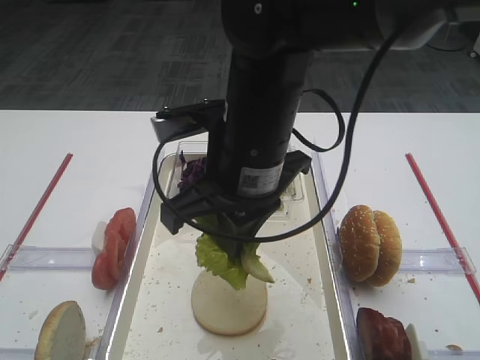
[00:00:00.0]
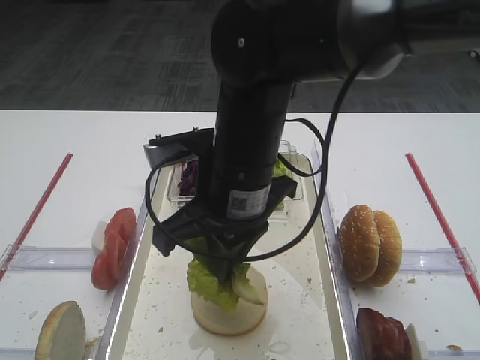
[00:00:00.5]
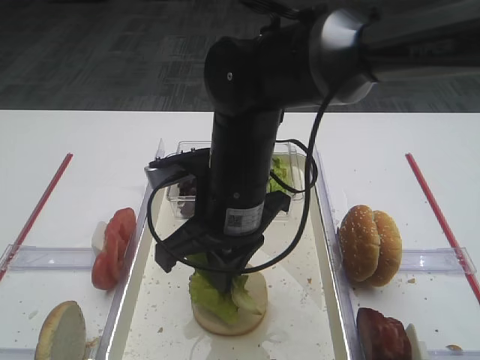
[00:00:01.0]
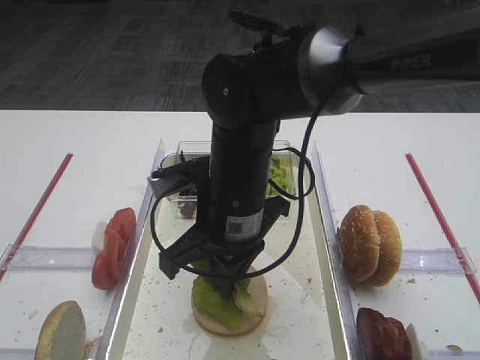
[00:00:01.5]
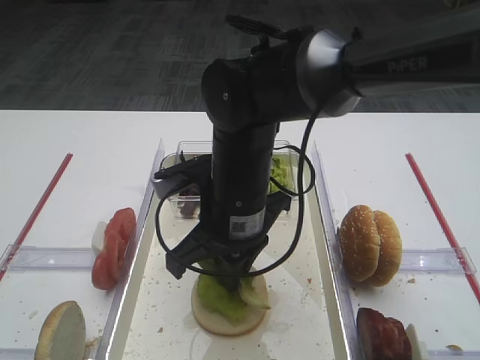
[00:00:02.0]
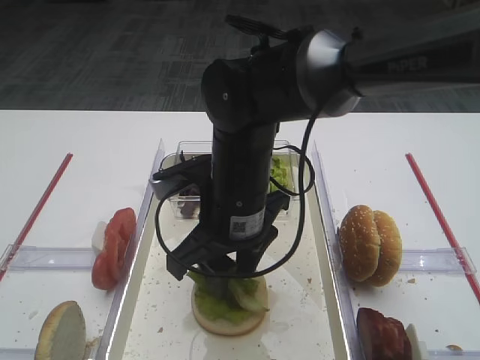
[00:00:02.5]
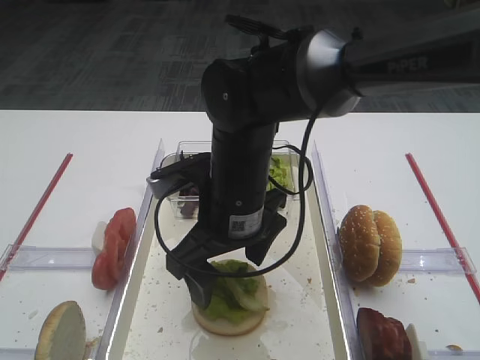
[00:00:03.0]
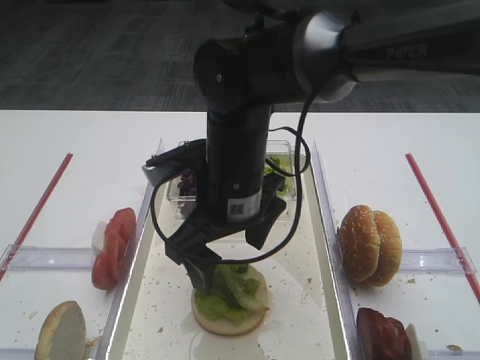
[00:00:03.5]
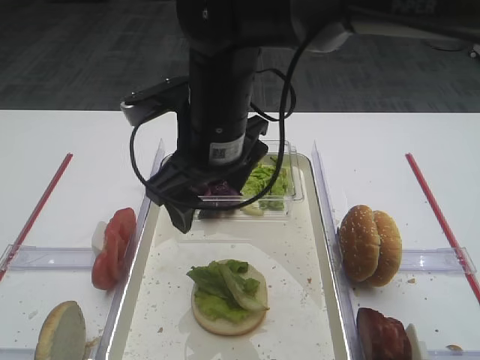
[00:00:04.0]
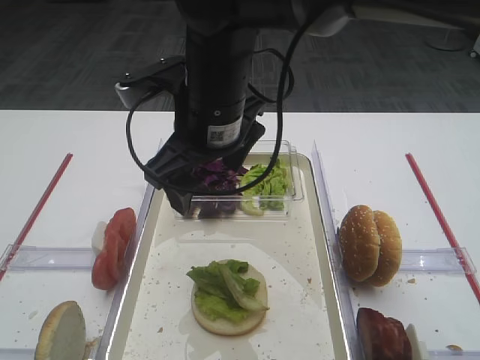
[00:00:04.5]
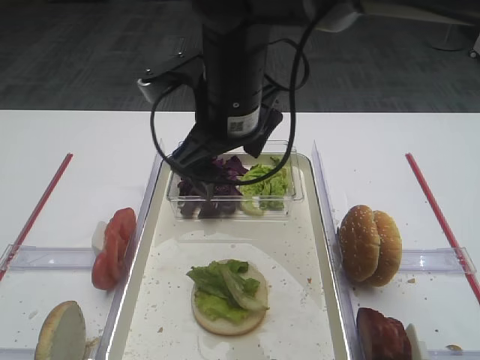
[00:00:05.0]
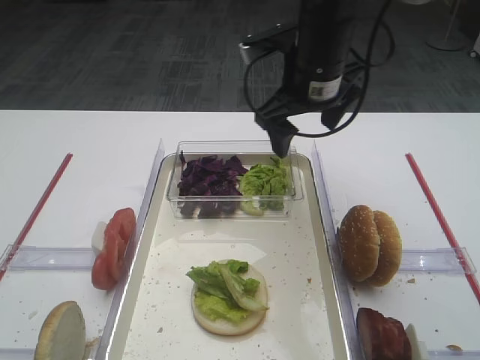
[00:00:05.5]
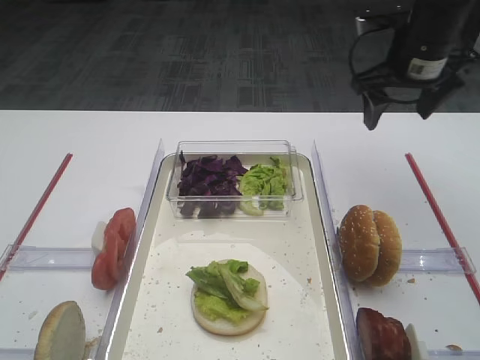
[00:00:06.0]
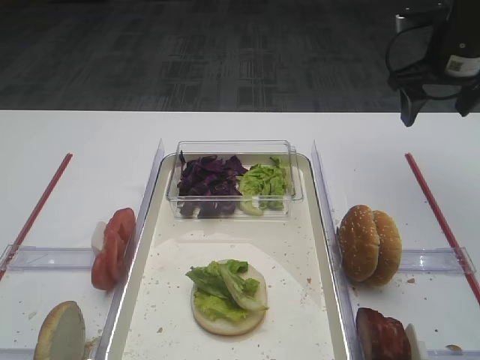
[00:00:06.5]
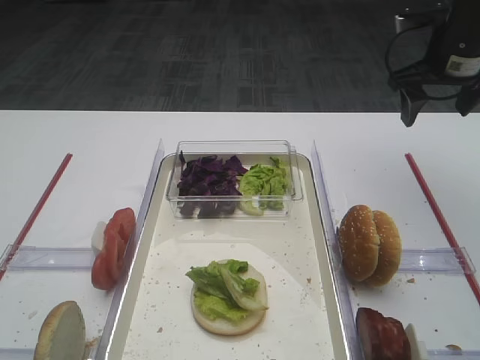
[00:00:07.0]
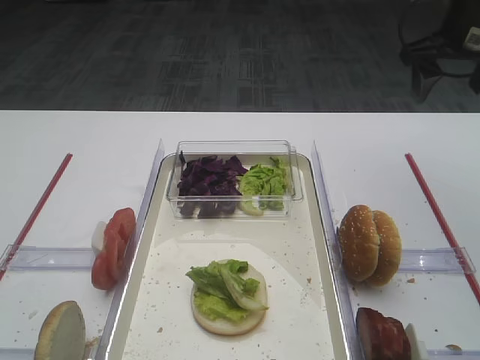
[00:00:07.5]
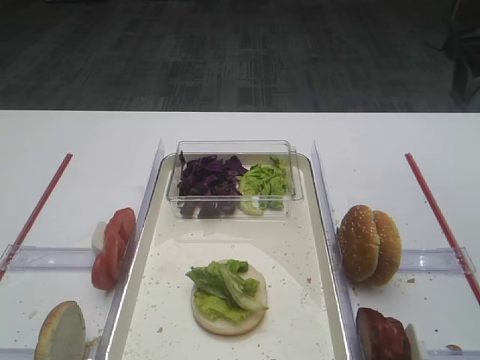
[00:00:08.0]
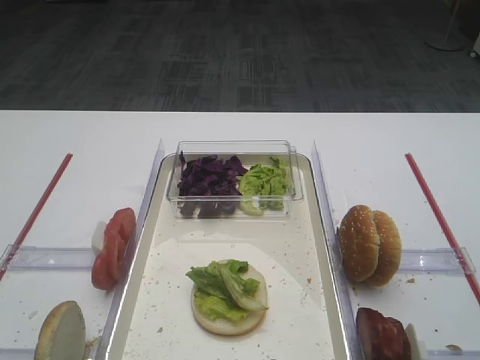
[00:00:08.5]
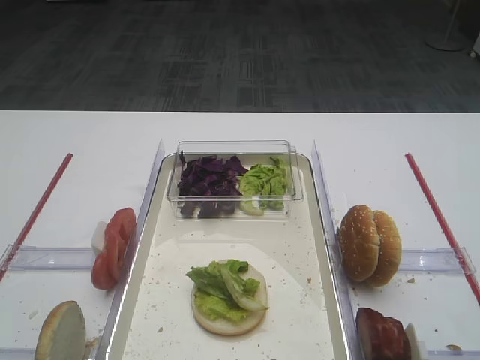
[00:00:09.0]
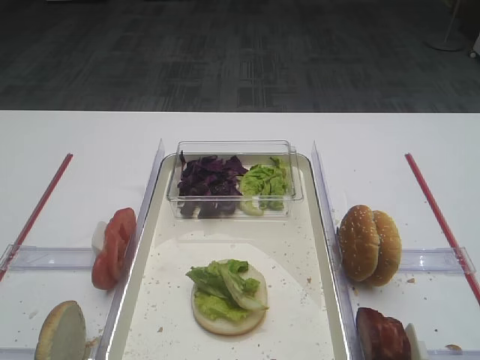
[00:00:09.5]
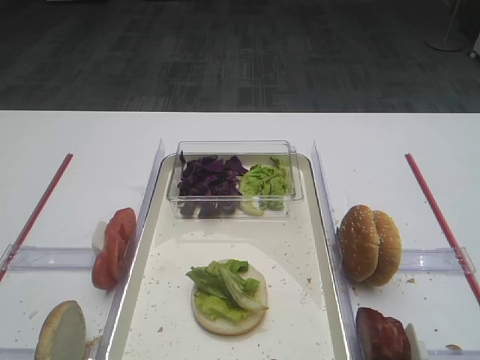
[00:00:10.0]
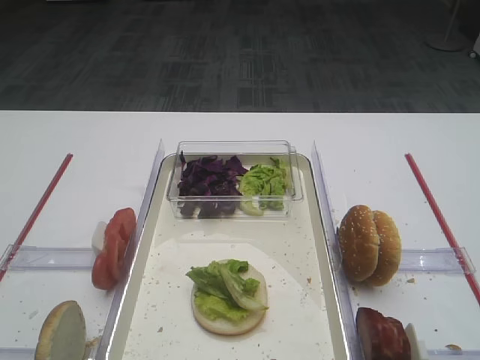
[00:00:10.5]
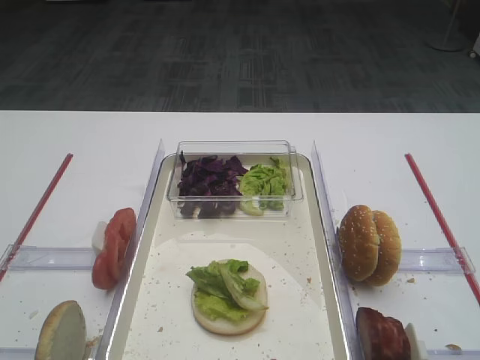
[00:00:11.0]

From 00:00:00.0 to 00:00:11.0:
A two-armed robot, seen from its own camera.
Step, from 00:00:00.0 to 00:00:03.5: Place the lettuce leaf on the bread slice with the right gripper.
From 00:00:00.0 to 00:00:02.0: The right gripper heads downward, covering roughly 5 cm.
From 00:00:02.0 to 00:00:03.5: The right gripper opens.
From 00:00:03.5 to 00:00:05.5: The right gripper shifts about 15 cm forward, to the right and upward.
From 00:00:05.5 to 00:00:07.5: The right gripper goes roughly 20 cm to the right.
From 00:00:07.5 to 00:00:09.0: The right gripper goes roughly 35 cm backward.

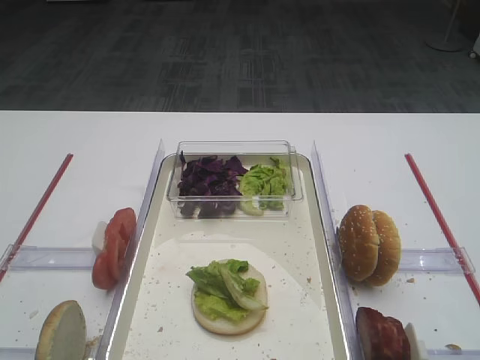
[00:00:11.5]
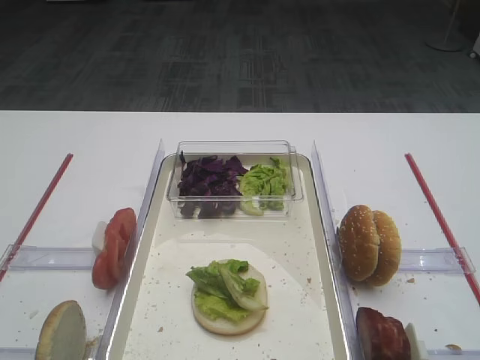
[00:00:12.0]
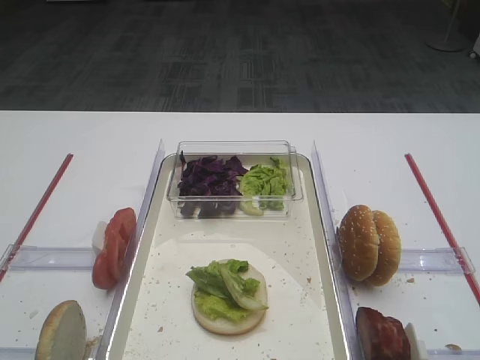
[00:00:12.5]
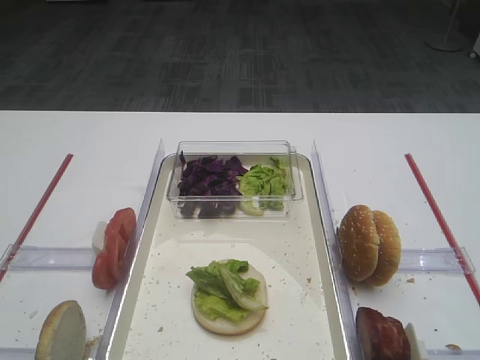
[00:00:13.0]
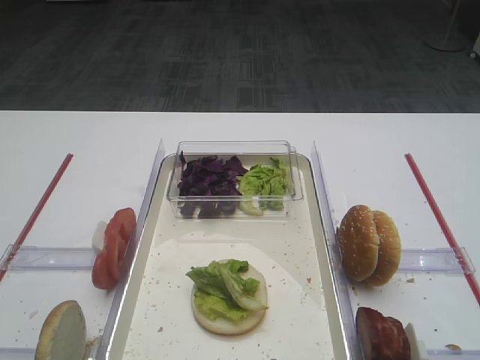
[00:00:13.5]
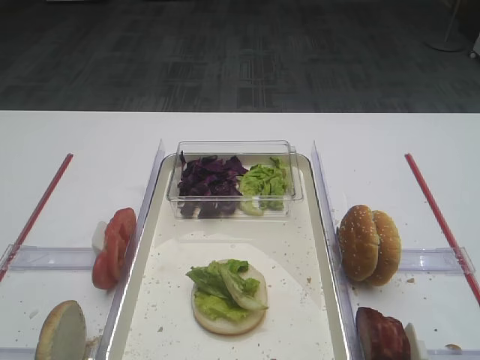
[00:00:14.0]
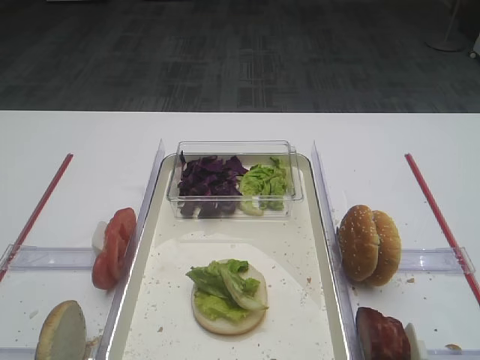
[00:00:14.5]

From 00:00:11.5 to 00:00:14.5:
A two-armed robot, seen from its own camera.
From 00:00:11.5 to 00:00:14.5: Neither gripper changes place.

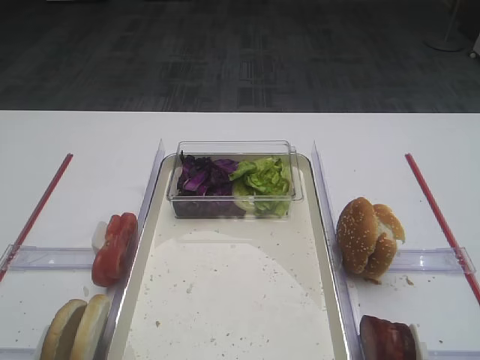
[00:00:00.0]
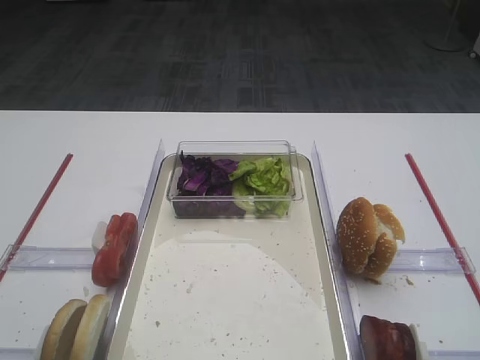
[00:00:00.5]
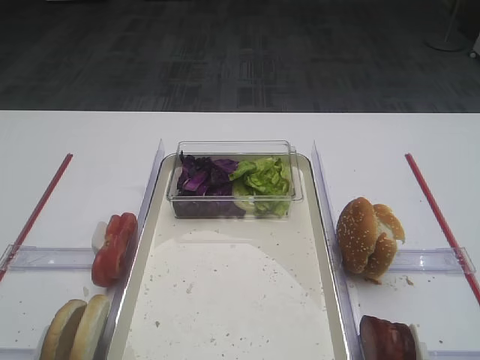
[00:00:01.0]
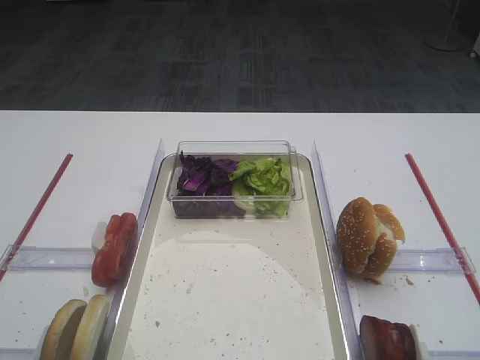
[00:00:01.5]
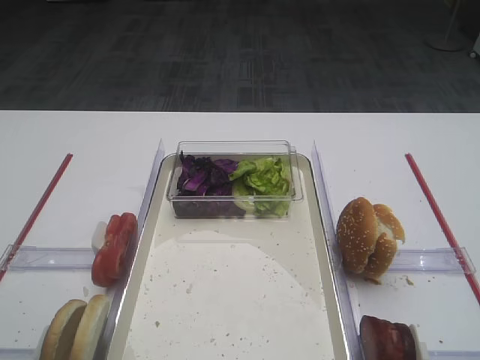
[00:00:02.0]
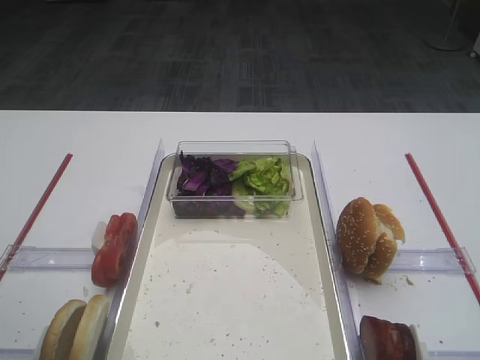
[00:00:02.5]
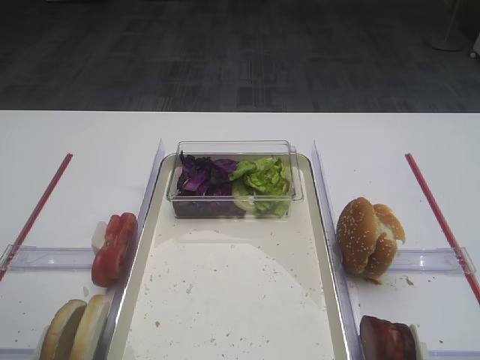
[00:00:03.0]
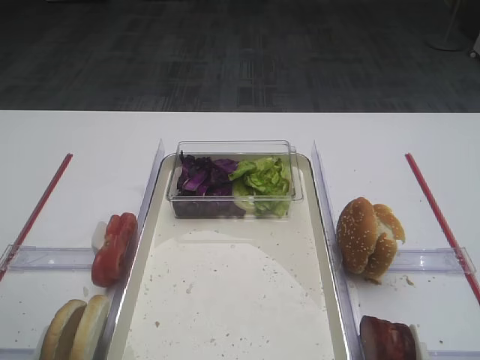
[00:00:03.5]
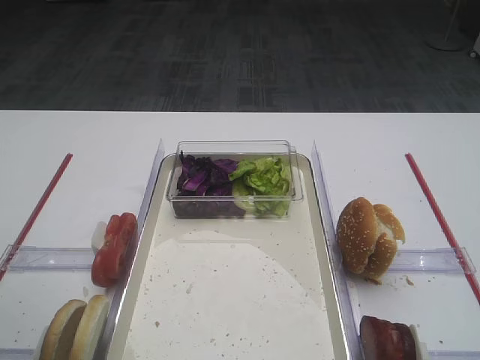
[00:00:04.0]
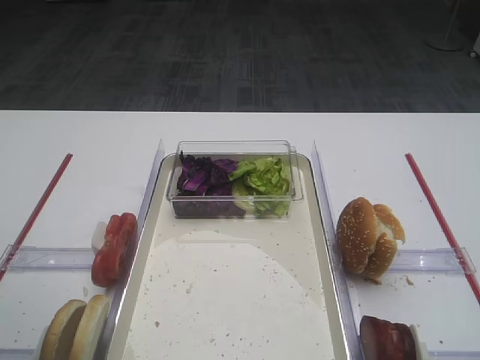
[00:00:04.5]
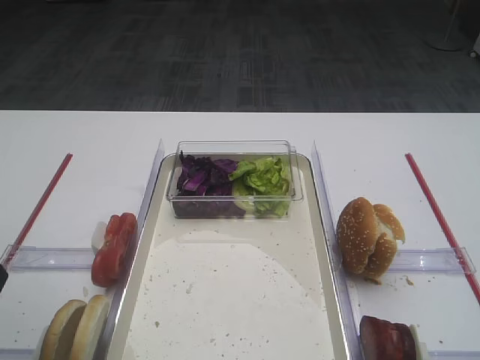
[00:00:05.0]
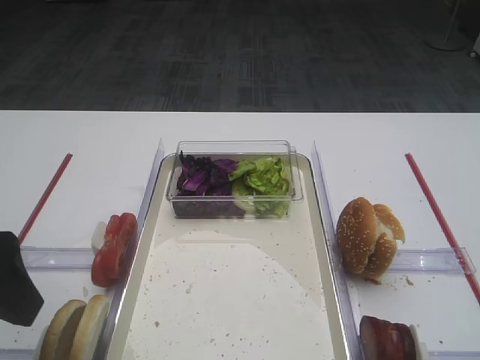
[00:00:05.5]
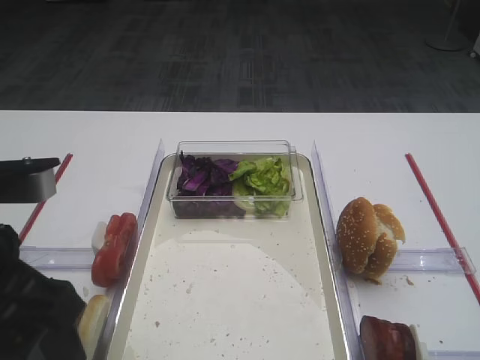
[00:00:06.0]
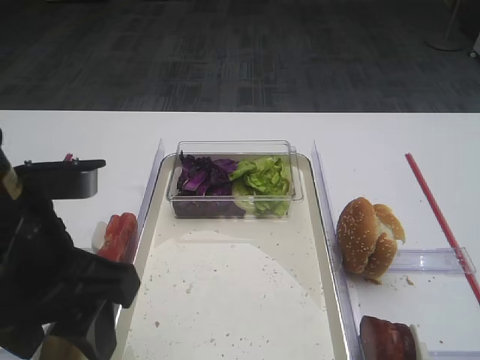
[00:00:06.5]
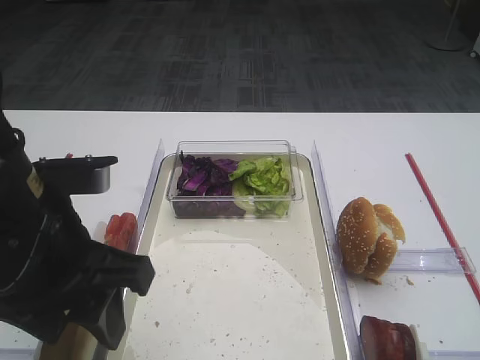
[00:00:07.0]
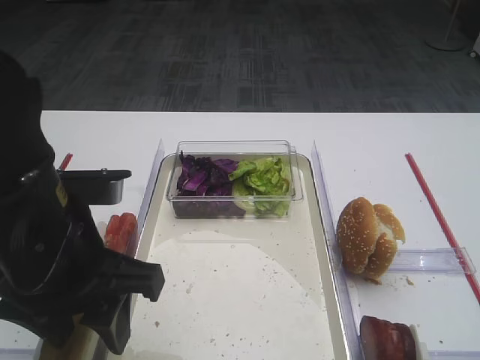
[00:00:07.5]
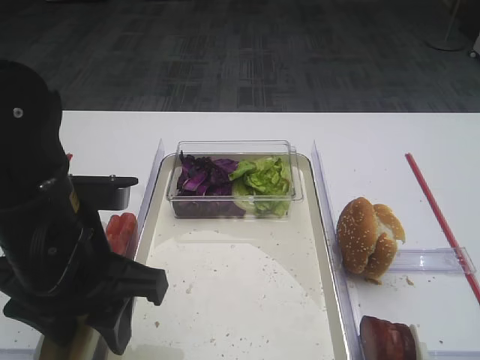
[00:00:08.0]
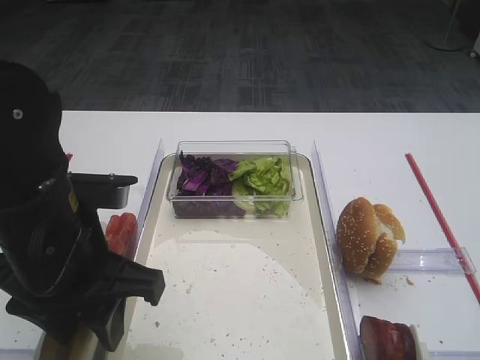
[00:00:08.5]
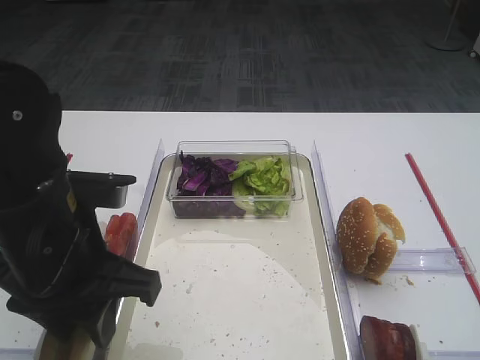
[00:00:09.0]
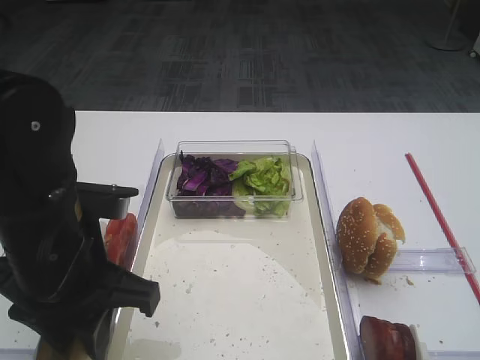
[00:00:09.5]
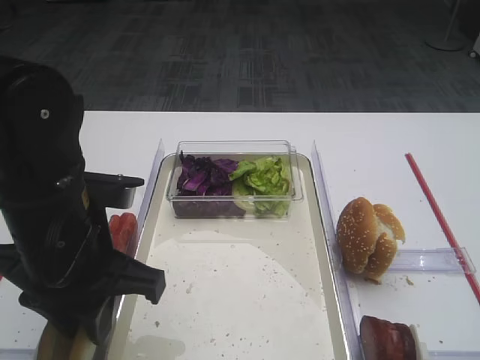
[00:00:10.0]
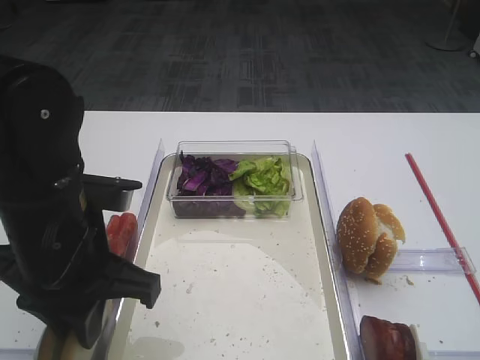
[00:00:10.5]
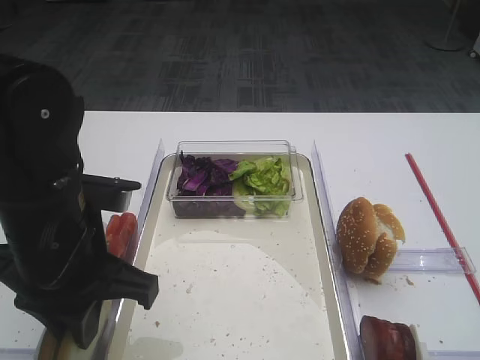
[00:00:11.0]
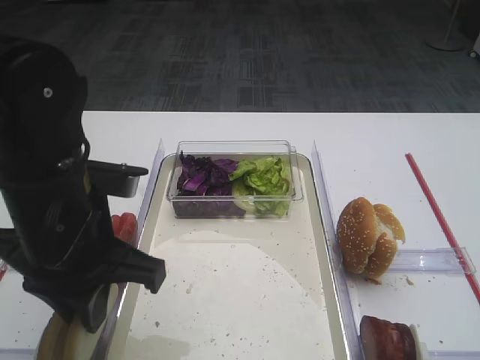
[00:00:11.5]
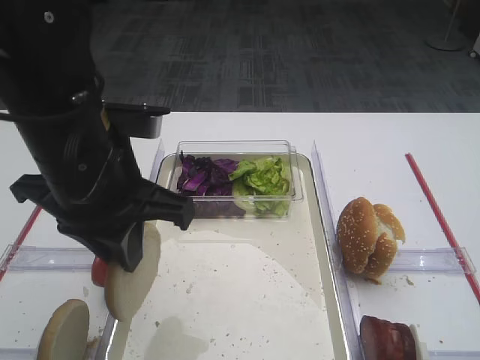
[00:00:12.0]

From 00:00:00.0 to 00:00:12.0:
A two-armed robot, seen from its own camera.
Step, from 00:00:00.0 to 00:00:11.5: Pick up the bread slice with the left gripper.
From 00:00:04.0 to 00:00:06.0: The left gripper moves to the right, about 10 cm.
From 00:00:06.0 to 00:00:08.0: The left gripper travels forward by roughly 5 cm.
From 00:00:08.0 to 00:00:10.0: The left gripper closes its fingers.
From 00:00:10.0 to 00:00:12.0: The left gripper heads upward, covering some 5 cm.
